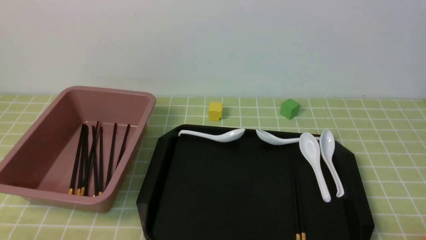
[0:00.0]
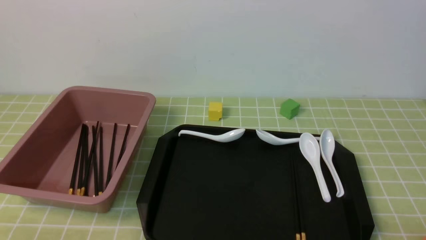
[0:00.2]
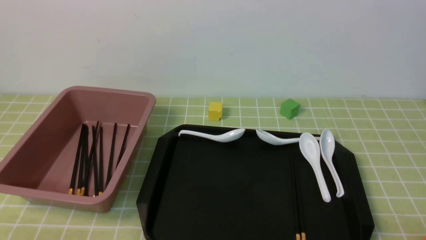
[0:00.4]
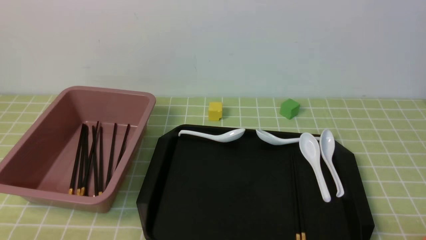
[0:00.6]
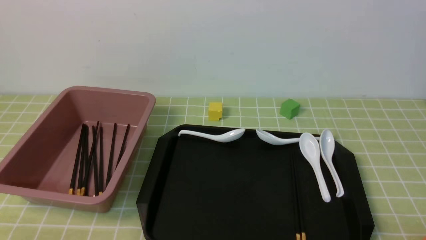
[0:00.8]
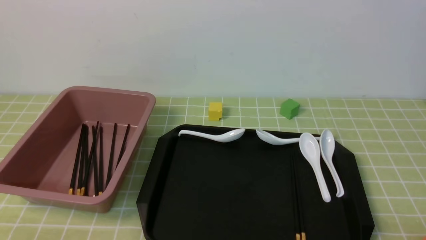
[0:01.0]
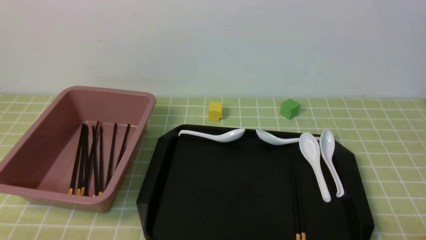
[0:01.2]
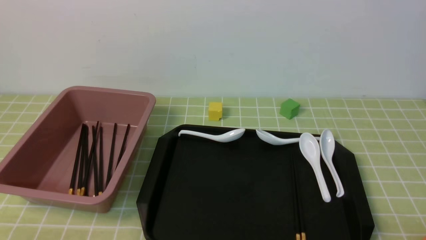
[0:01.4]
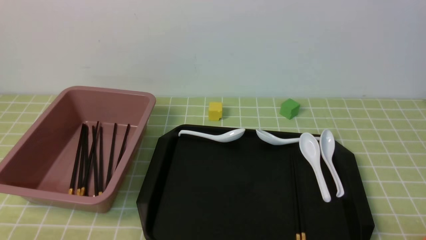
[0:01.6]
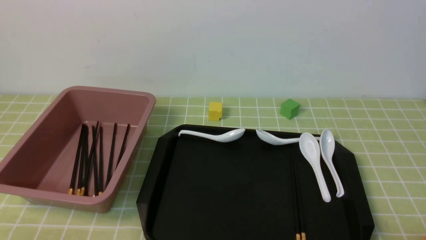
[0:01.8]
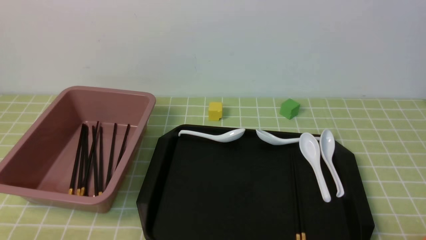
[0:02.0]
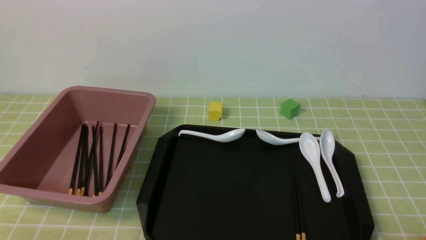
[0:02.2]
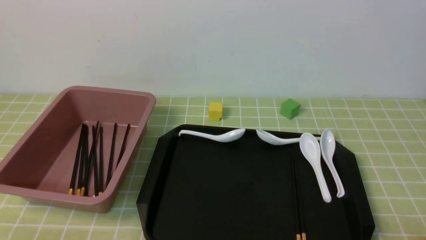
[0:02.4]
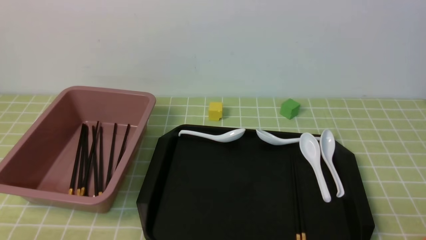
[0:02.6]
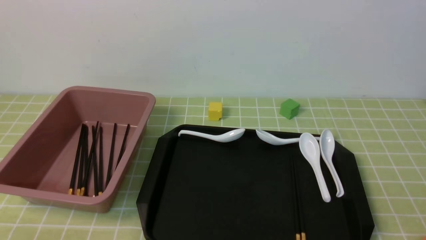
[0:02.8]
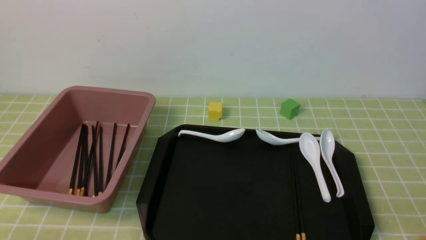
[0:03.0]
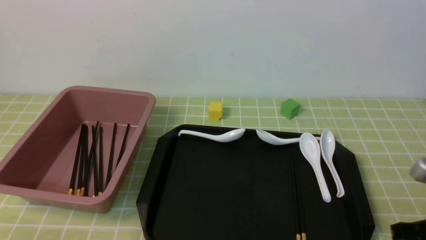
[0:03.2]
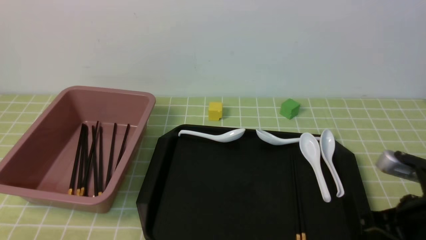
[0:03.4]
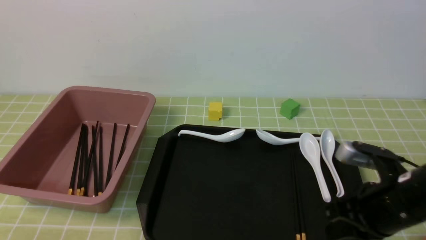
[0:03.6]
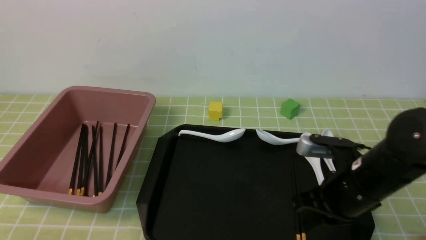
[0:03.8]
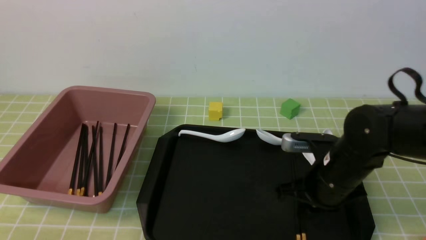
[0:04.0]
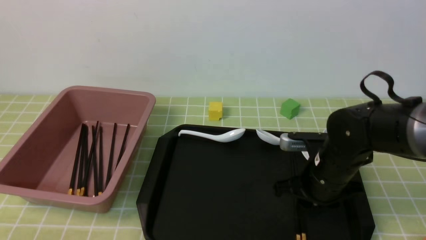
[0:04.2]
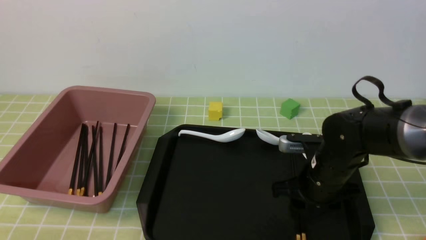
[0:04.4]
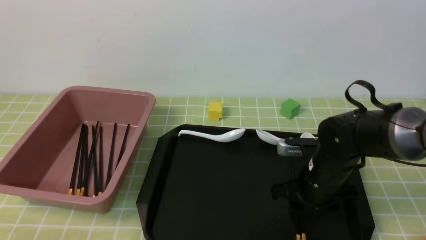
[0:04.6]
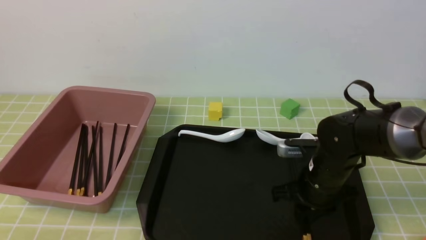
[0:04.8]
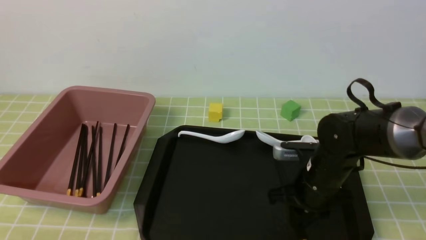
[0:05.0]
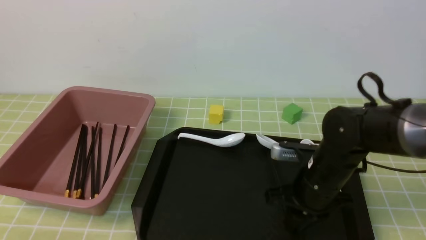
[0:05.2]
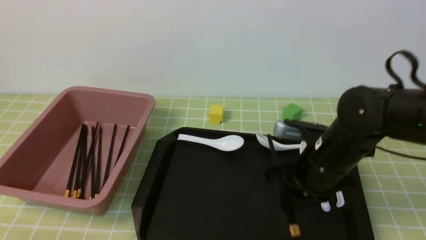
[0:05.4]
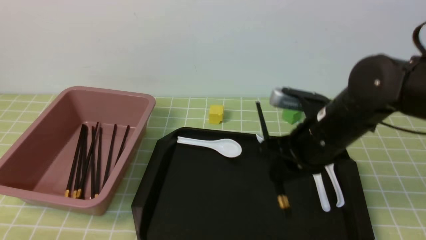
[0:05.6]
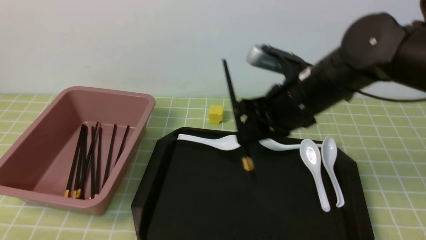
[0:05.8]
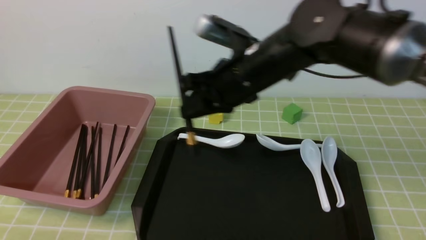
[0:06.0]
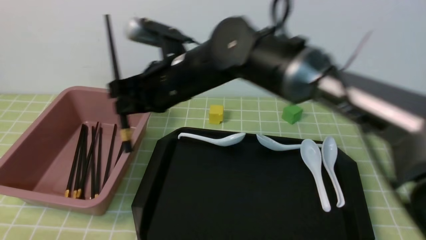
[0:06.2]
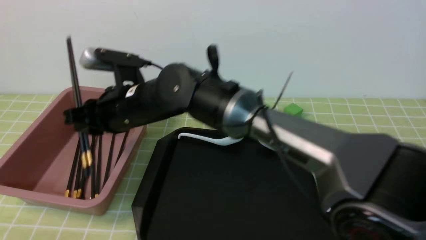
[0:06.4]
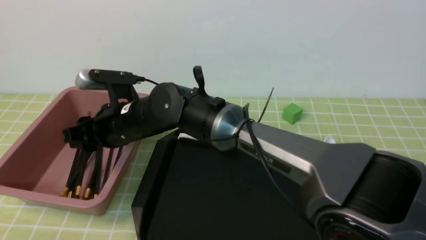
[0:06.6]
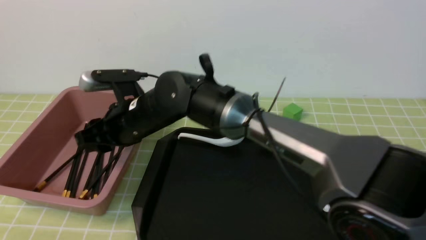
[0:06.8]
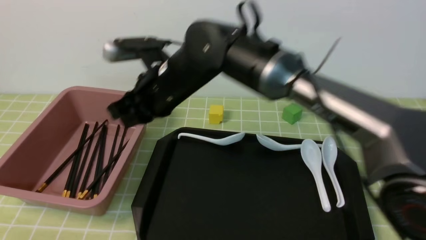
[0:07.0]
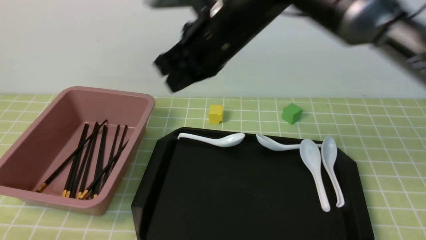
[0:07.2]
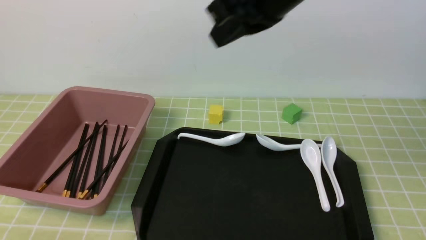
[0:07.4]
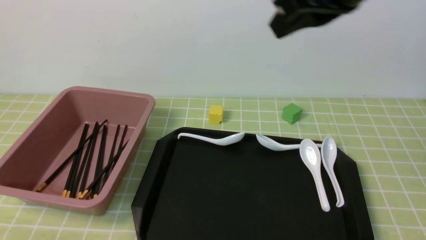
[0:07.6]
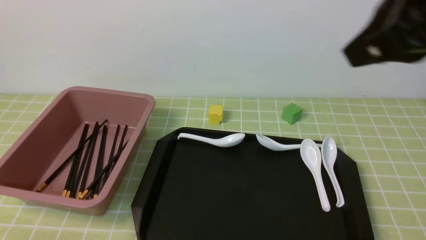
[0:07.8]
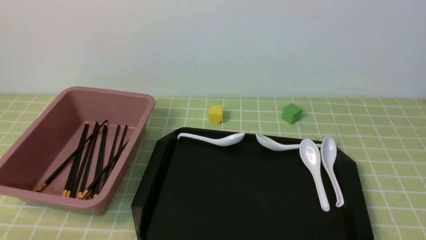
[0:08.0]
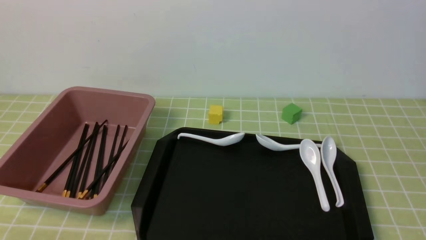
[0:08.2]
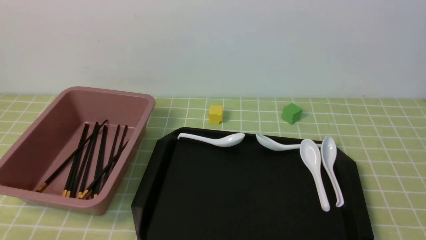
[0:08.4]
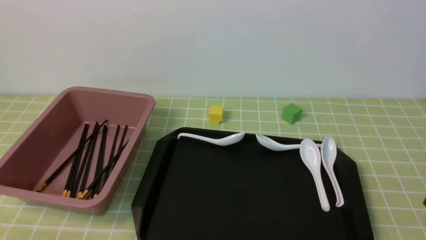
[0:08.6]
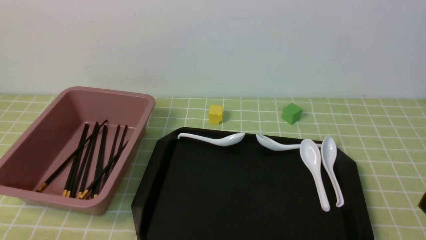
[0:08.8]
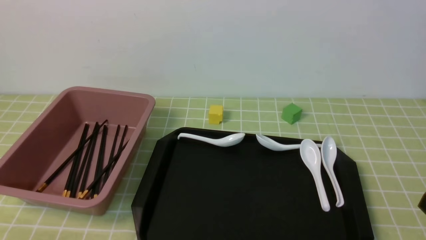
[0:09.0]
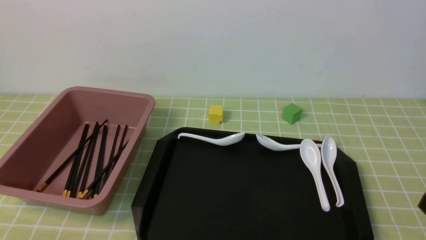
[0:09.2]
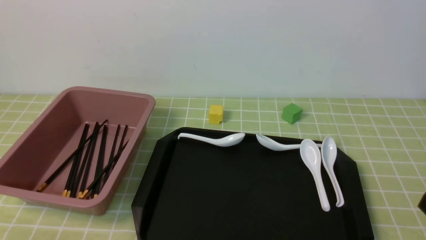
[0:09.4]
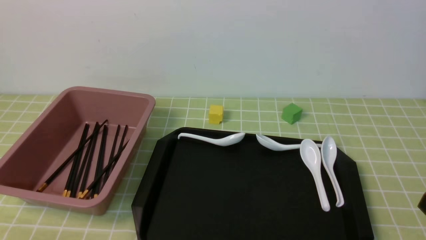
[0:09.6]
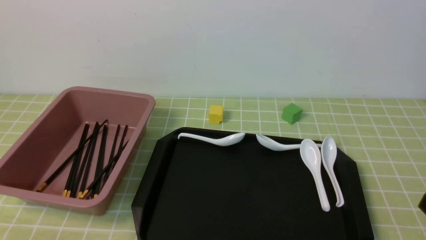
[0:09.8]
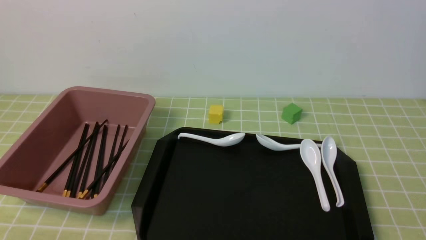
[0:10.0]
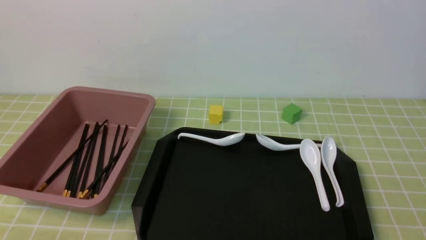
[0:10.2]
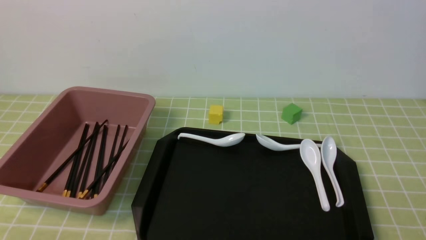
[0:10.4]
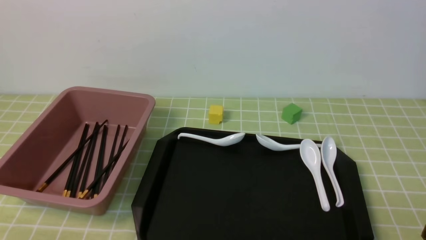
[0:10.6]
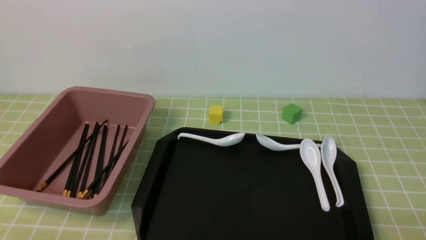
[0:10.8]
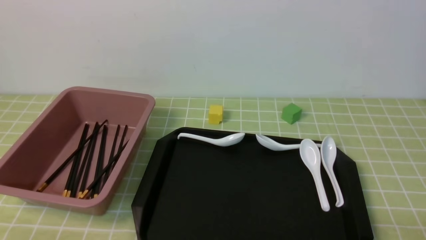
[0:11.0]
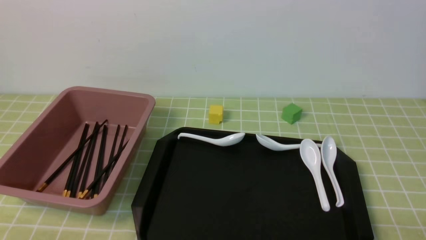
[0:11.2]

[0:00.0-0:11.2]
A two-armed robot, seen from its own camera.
Step, 0:00.0 to 0:05.4: use the right arm to grab a pair of chopsticks.
Step, 0:05.8 to 0:06.8: use the right arm to put the chopsticks into the lunch box.
0:01.6 to 0:03.2: The right gripper is displaced forward and upward by about 15 cm, and closes.
0:03.2 to 0:04.8: The right gripper goes roughly 20 cm forward, to the left and downward, and opens up.
0:04.8 to 0:06.4: The right gripper travels to the left and upward by approximately 30 cm.
0:06.4 to 0:08.0: The right gripper goes roughly 50 cm to the right, backward and upward, and closes its fingers.

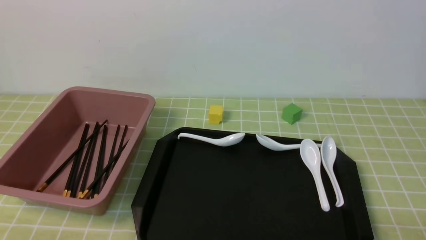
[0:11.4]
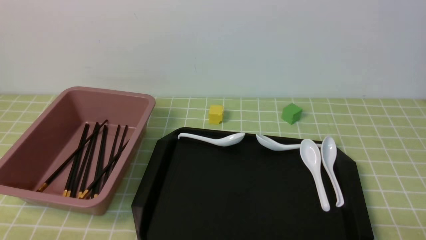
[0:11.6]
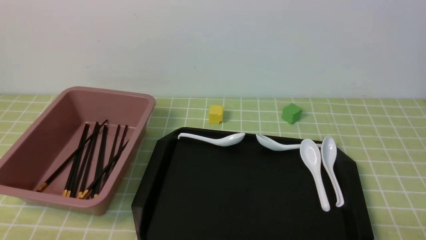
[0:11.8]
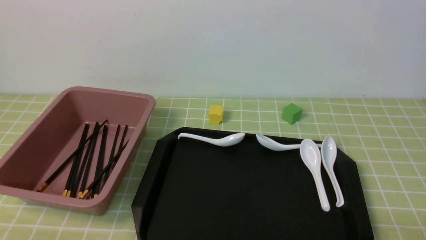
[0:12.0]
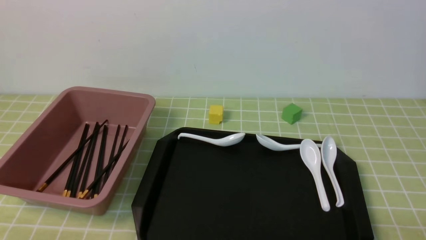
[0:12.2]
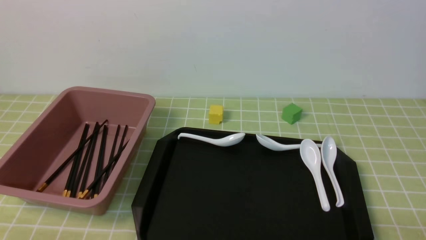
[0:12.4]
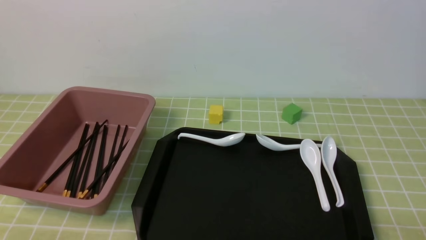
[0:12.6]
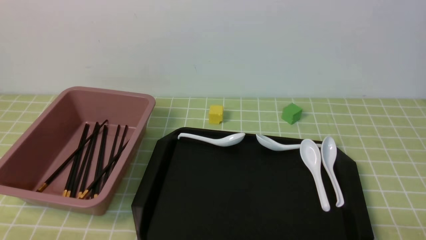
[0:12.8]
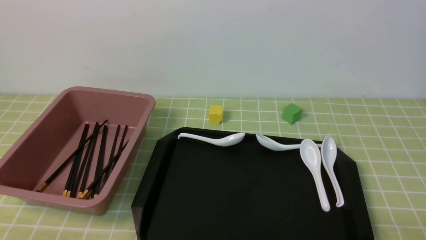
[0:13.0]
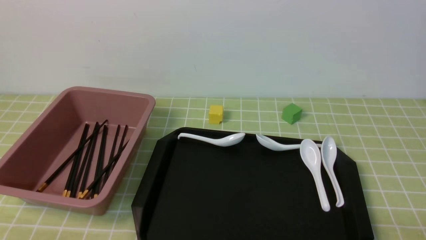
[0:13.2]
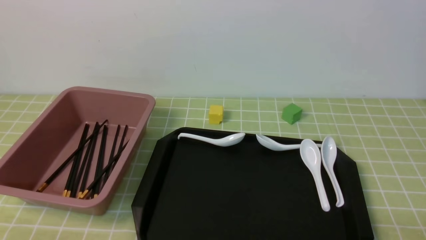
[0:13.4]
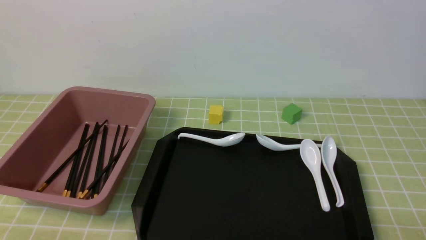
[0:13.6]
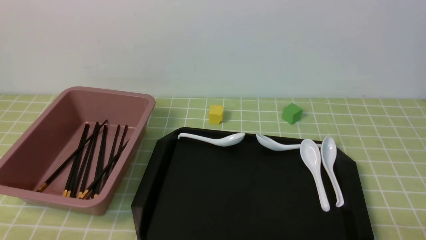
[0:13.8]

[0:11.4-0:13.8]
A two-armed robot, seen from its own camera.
0:11.4 to 0:13.8: Neither gripper changes place.

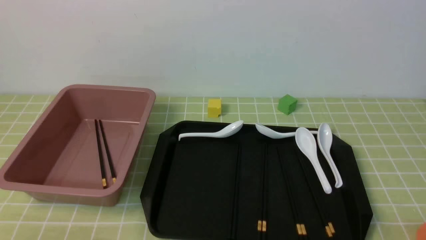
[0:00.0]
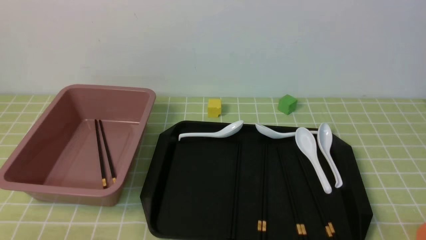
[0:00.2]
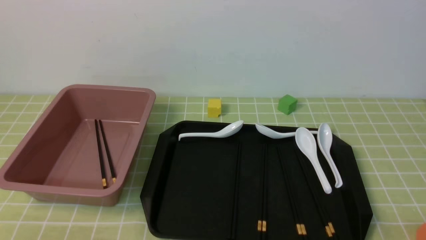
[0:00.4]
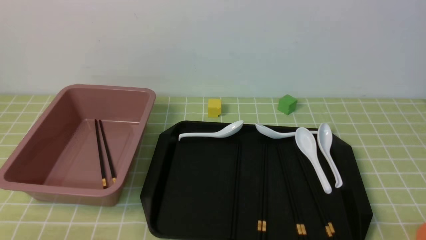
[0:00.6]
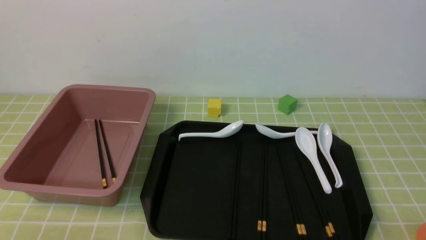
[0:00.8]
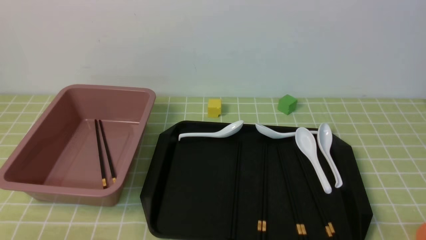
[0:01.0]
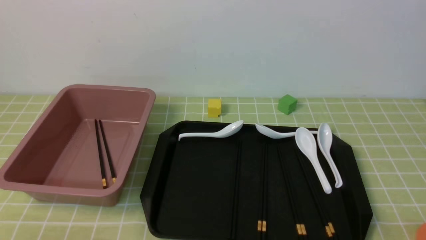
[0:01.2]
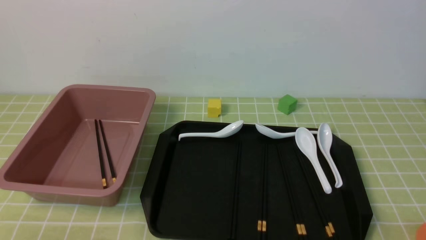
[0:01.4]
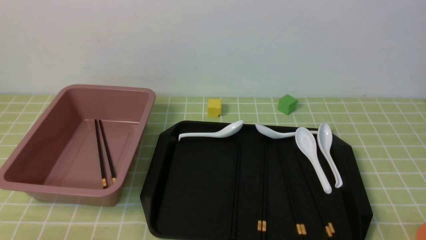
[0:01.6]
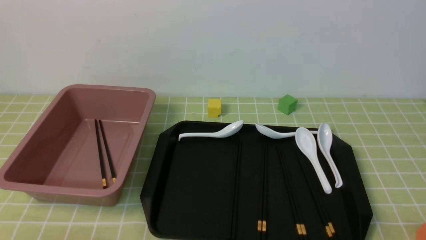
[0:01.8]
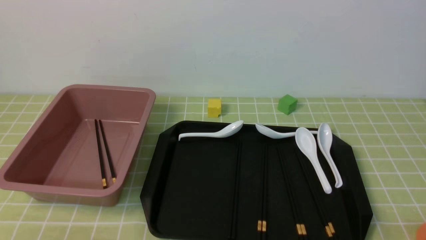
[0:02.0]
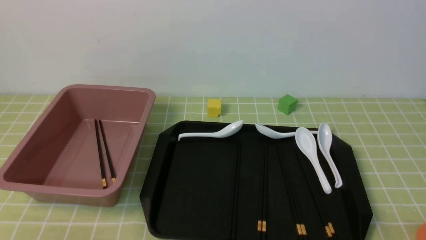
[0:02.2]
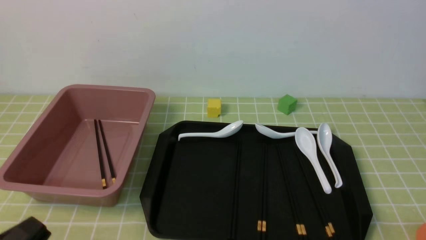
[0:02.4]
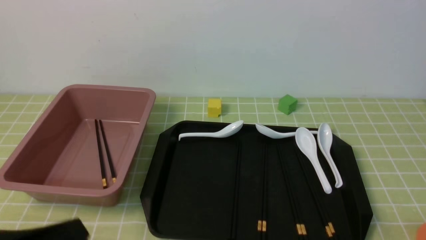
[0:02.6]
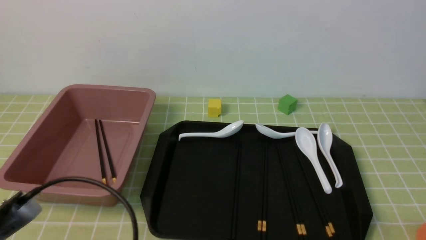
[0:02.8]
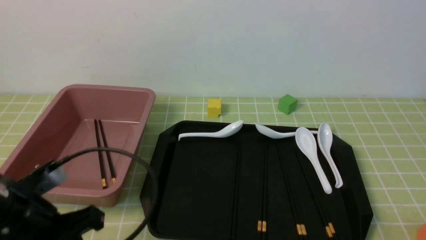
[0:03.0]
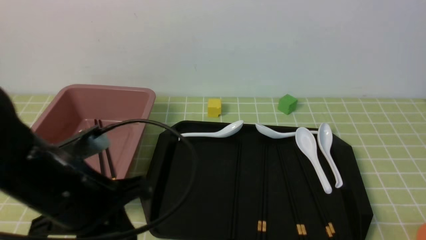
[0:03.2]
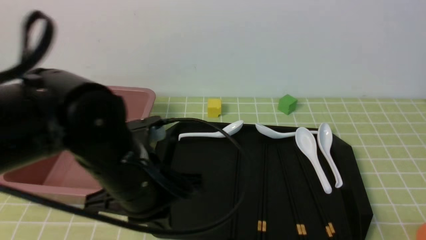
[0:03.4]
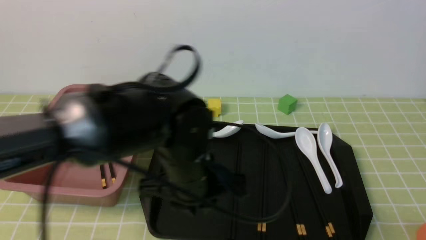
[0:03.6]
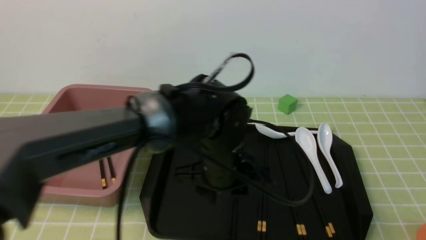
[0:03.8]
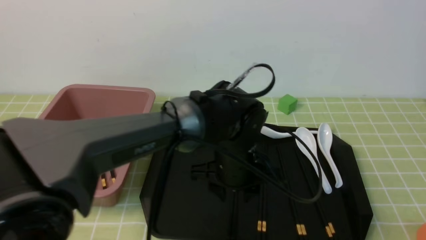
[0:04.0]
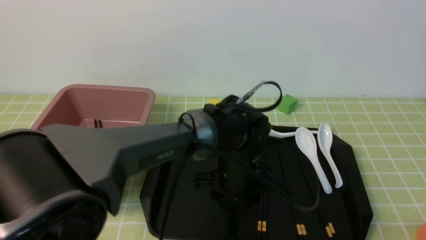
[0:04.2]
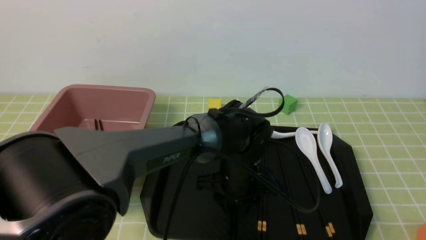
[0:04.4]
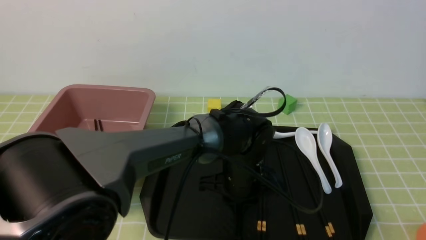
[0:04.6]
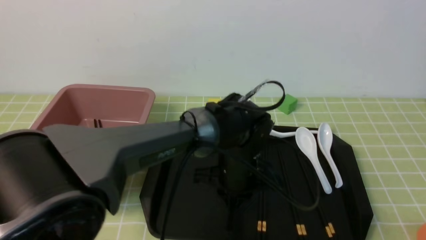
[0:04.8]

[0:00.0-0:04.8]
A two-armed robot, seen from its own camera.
0:01.6 to 0:03.2: The left gripper heads forward, upward and to the right, covering approximately 20 cm.
0:03.2 to 0:04.8: The left gripper heads to the right and forward, covering approximately 25 cm, and opens, then closes once more.
